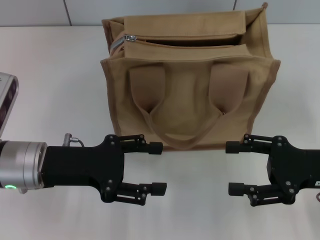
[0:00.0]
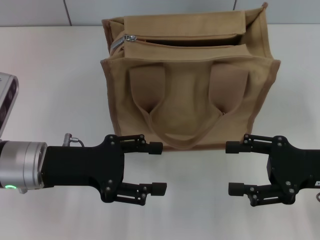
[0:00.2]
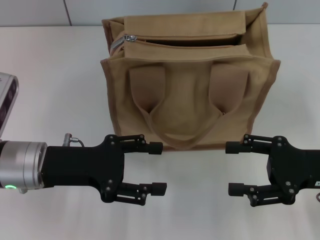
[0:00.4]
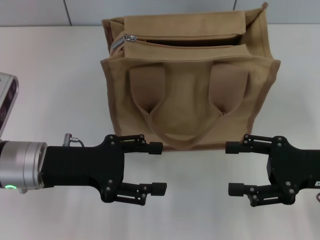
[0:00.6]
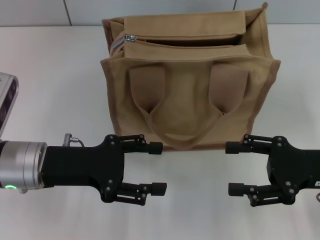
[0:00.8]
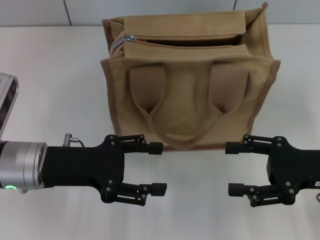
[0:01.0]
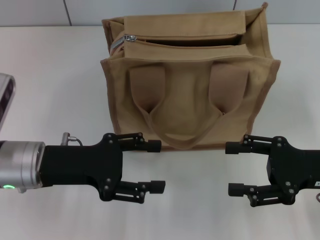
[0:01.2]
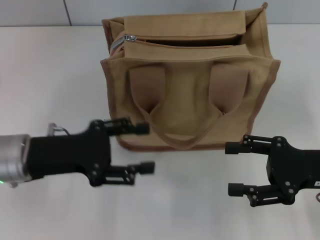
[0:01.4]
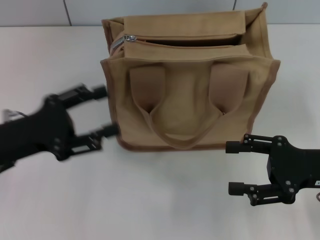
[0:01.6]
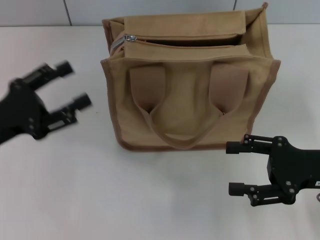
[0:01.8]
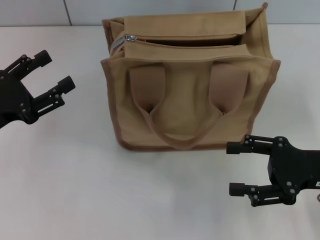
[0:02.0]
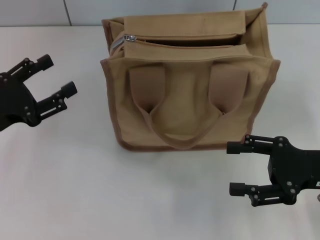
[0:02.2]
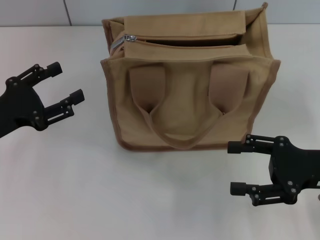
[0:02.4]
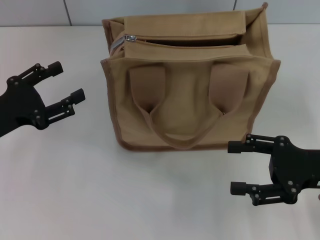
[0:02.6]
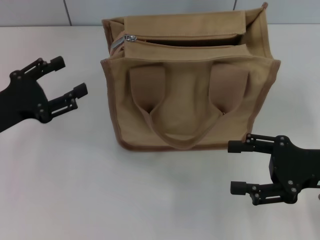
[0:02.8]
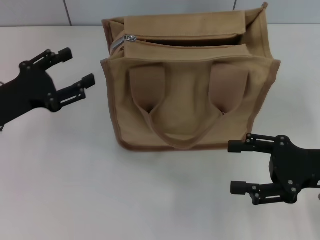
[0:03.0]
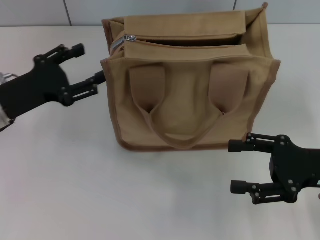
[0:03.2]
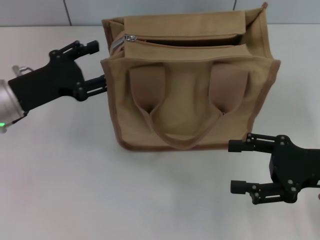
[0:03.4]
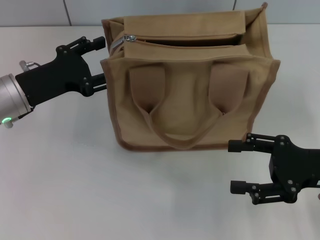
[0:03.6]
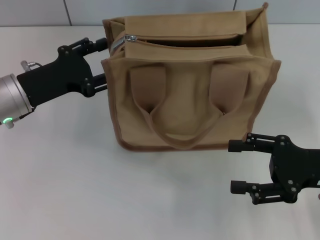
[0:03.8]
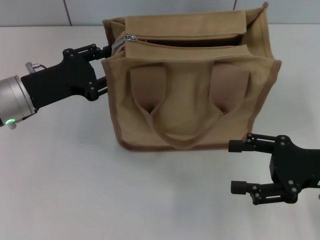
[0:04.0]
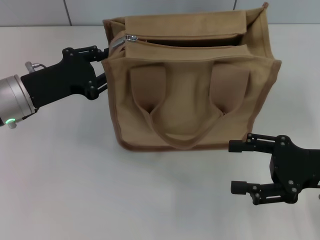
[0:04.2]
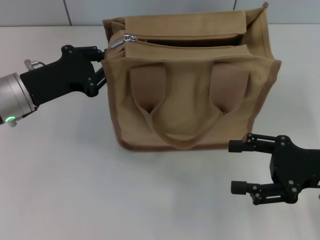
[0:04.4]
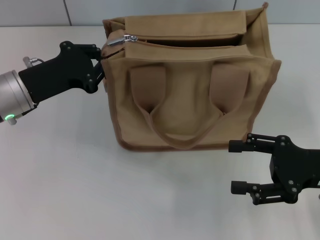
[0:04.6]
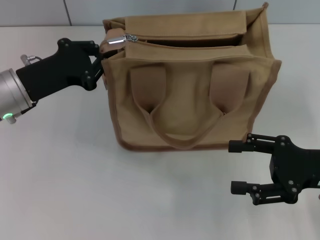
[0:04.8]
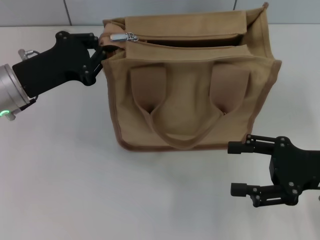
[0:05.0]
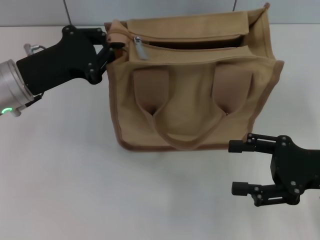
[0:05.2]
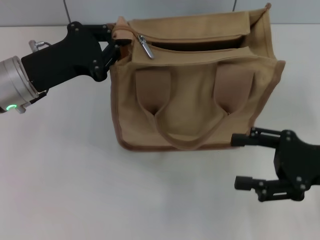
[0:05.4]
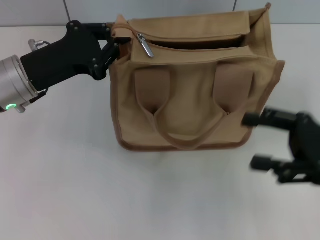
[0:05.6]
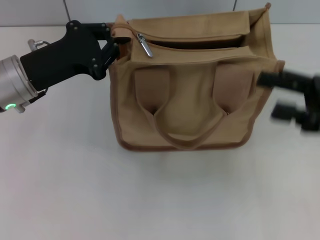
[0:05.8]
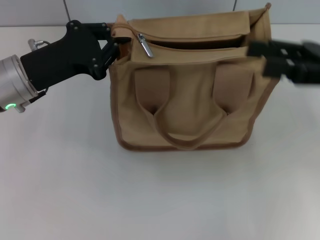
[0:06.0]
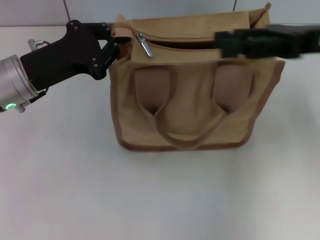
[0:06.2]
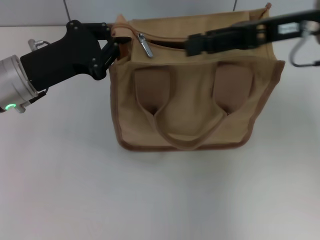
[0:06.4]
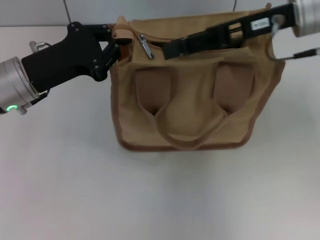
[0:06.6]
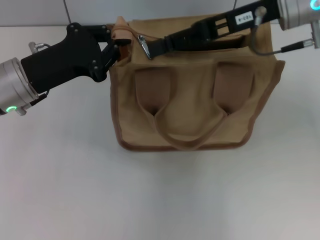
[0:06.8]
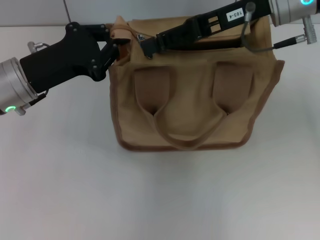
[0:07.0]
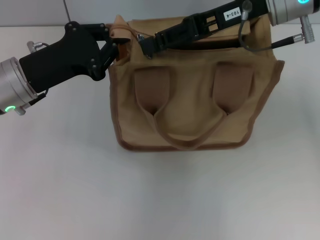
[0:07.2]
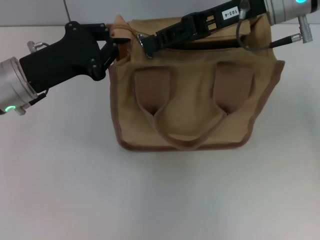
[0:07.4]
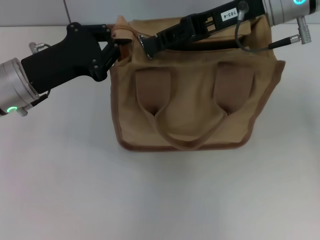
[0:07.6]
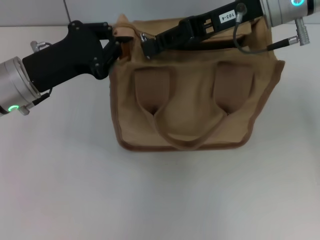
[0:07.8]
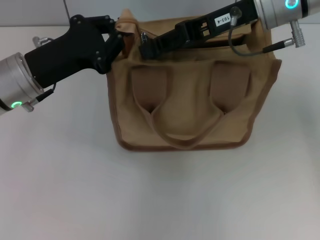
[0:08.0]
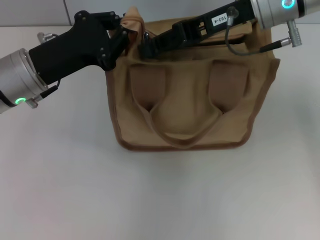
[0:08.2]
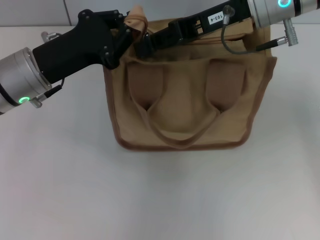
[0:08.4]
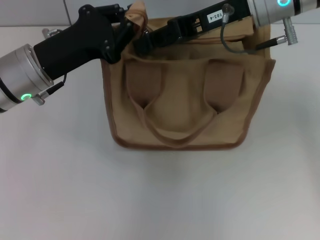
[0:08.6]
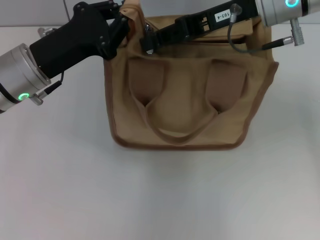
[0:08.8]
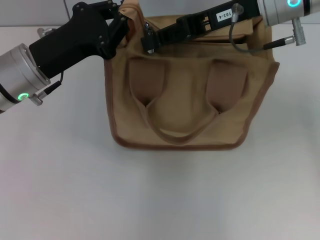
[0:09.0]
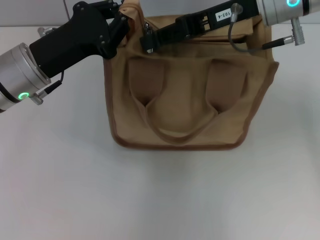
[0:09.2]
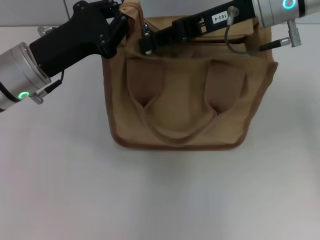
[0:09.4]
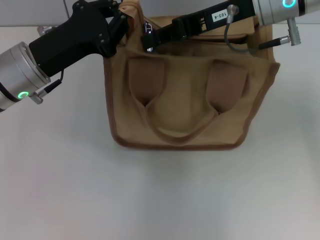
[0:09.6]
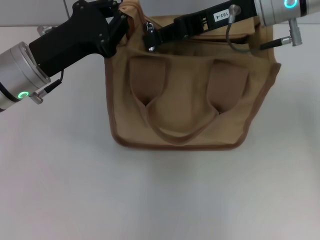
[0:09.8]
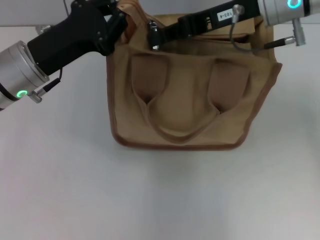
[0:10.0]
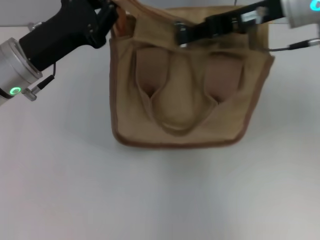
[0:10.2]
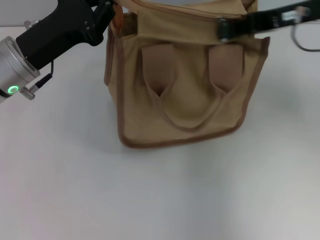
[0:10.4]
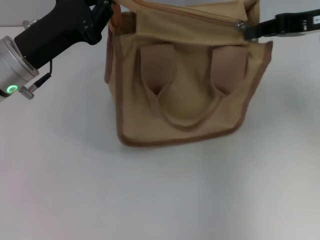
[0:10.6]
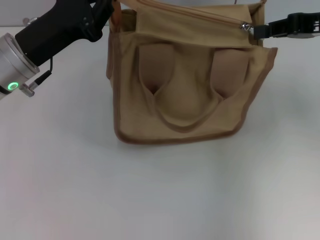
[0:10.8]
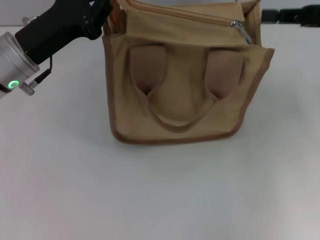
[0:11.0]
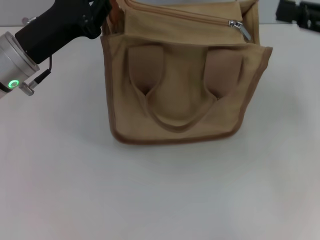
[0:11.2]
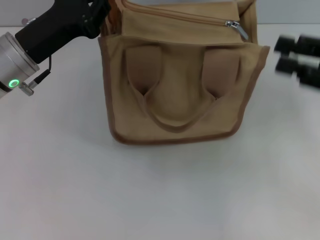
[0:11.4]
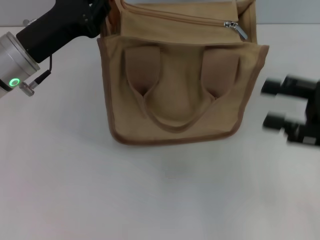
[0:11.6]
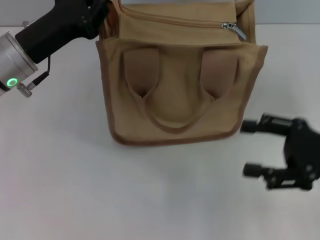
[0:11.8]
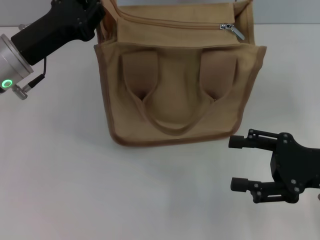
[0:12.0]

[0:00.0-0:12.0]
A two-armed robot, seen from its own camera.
Step, 0:00.0 to 0:10.8: Pull up the zipper with your right hand.
0:00.0 to 0:01.6: The left gripper travels to the left by some 5 cm.
0:03.0 to 0:04.4: The left gripper moves roughly 5 cm, and closes up.
0:04.4 to 0:06.0: The left gripper closes, while the right gripper shifts approximately 10 cm upward and forward.
0:06.0 to 0:07.6: The right gripper moves to the left and forward, approximately 15 cm, and closes.
0:07.6 to 0:09.0: There are only small adjustments of the grippers.
0:09.0 to 0:10.4: The right gripper goes some 10 cm to the right.
0:10.4 to 0:12.0: The right gripper goes approximately 20 cm backward and downward, and opens its fingers.

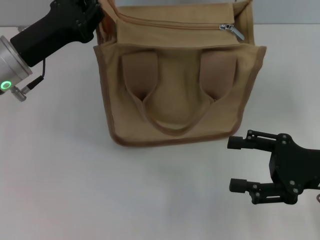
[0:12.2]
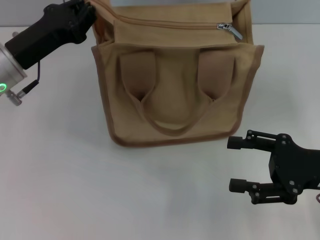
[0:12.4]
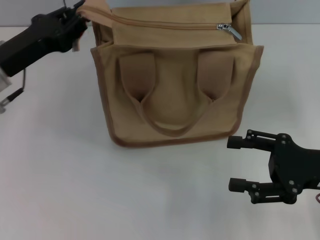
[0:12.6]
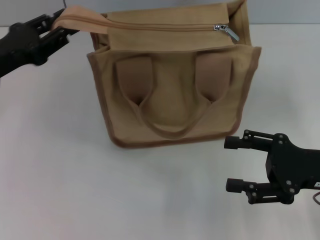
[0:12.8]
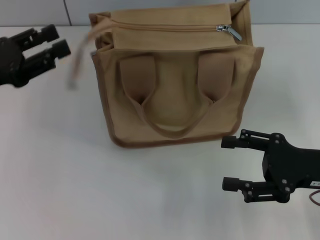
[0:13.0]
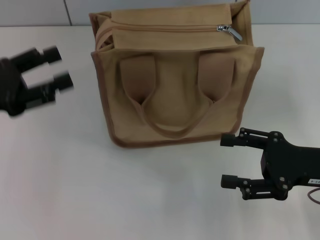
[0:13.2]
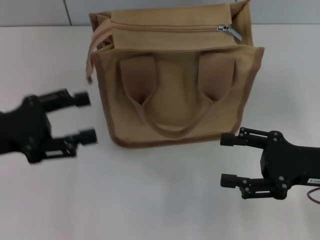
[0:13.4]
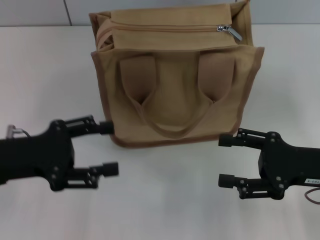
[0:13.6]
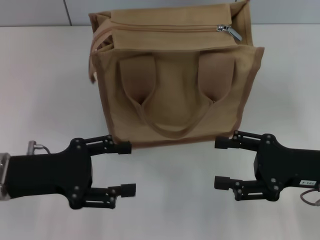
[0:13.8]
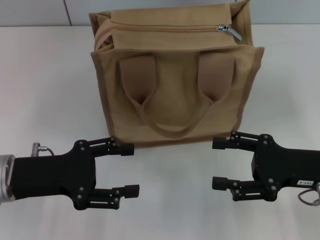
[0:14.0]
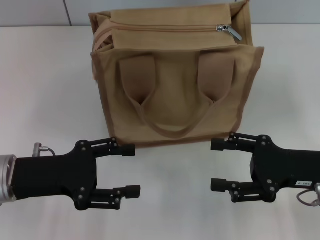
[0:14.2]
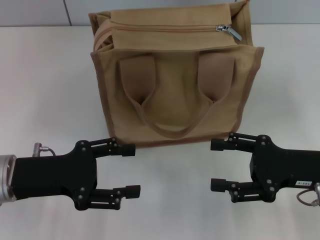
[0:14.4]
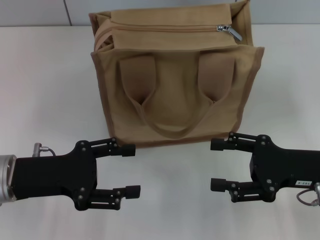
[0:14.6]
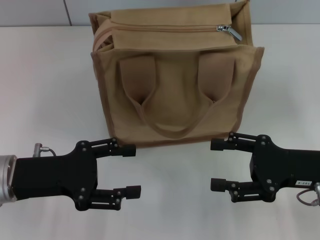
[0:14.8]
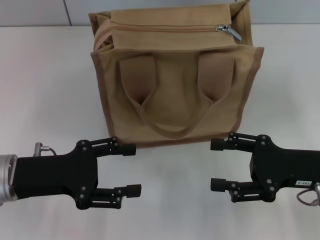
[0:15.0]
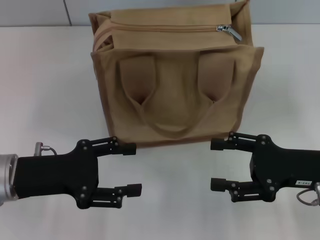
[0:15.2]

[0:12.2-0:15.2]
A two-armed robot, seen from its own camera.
0:12.2 to 0:13.8: The left gripper goes approximately 10 cm backward, and opens.
0:13.8 to 0:15.2: Both grippers stay put.

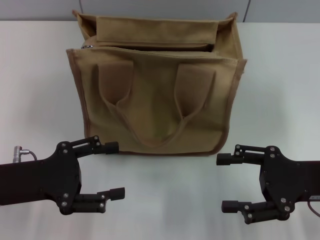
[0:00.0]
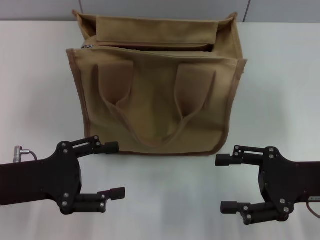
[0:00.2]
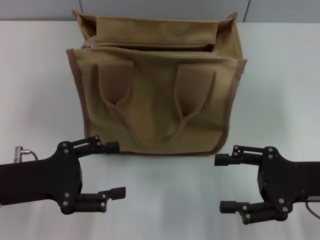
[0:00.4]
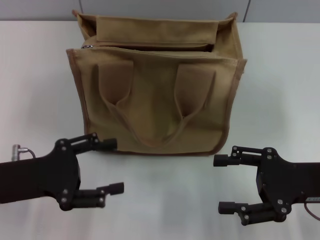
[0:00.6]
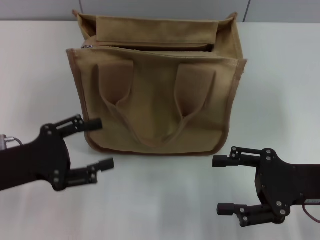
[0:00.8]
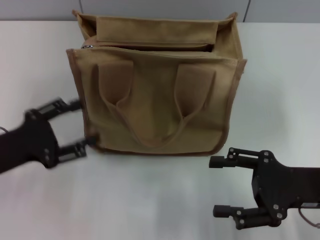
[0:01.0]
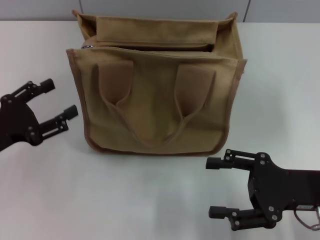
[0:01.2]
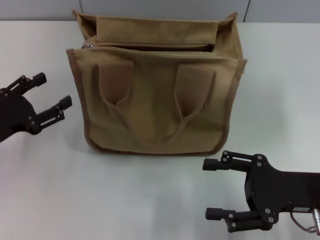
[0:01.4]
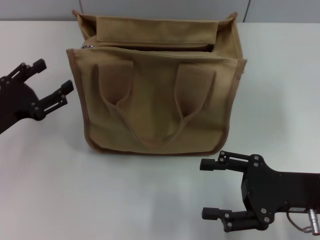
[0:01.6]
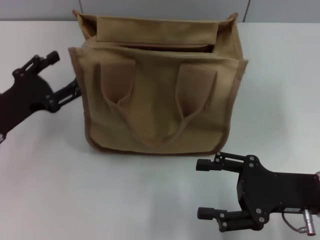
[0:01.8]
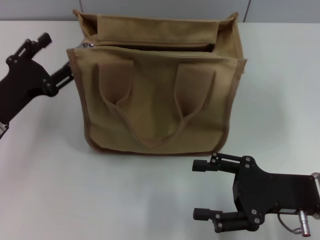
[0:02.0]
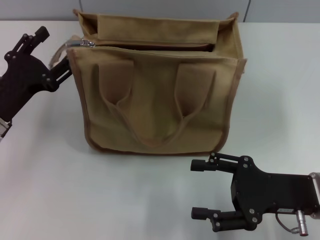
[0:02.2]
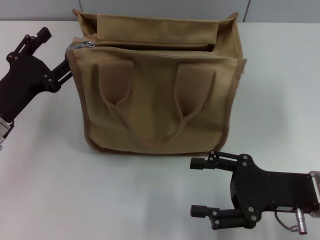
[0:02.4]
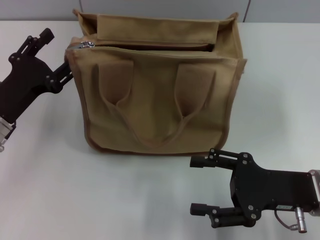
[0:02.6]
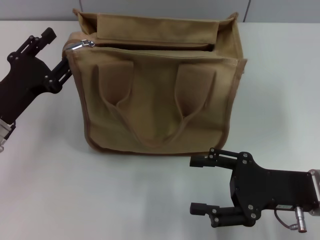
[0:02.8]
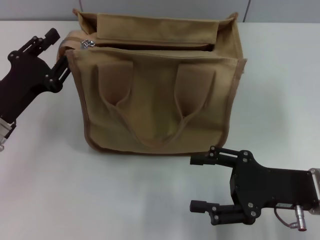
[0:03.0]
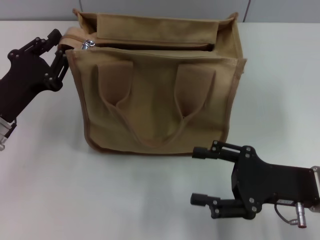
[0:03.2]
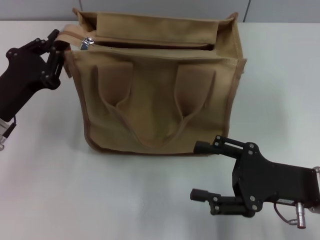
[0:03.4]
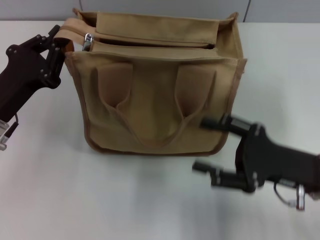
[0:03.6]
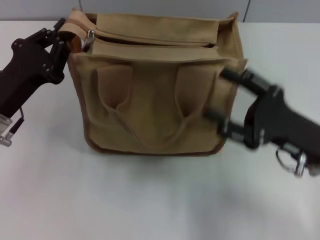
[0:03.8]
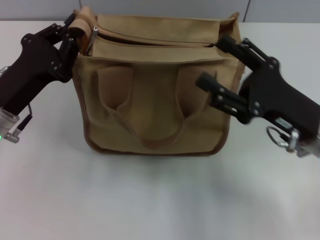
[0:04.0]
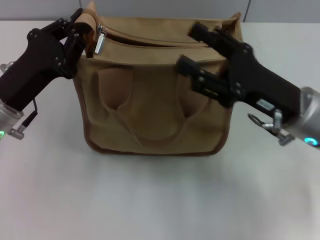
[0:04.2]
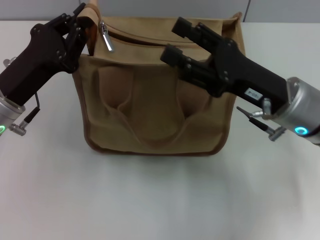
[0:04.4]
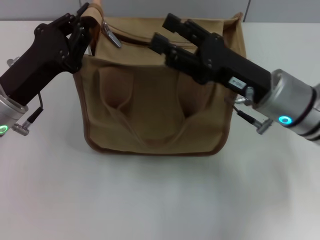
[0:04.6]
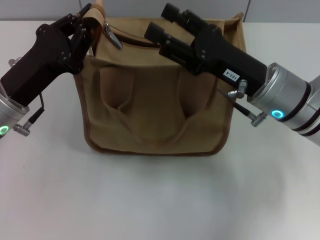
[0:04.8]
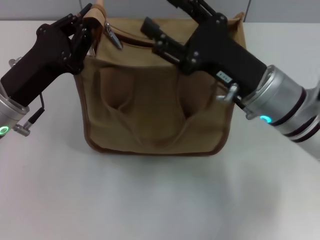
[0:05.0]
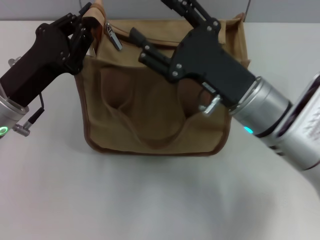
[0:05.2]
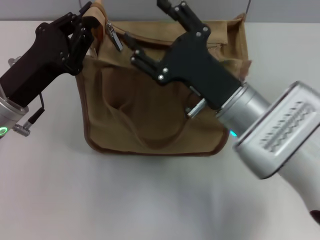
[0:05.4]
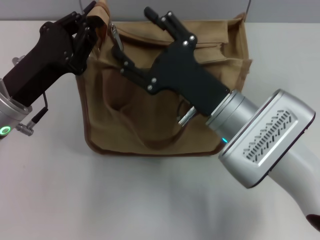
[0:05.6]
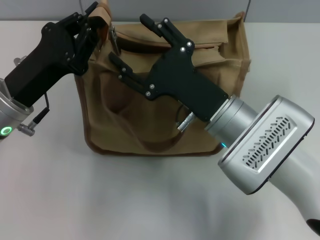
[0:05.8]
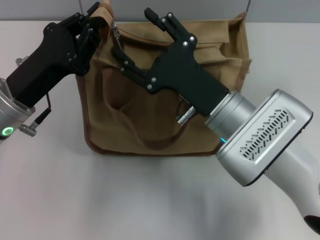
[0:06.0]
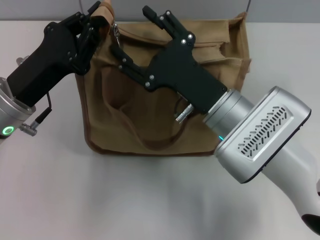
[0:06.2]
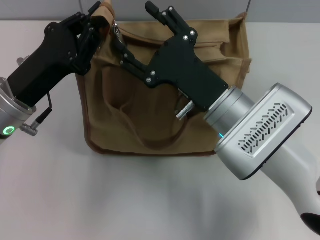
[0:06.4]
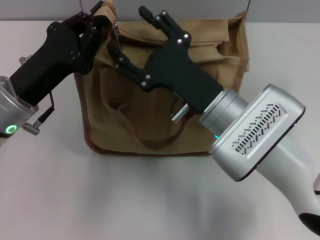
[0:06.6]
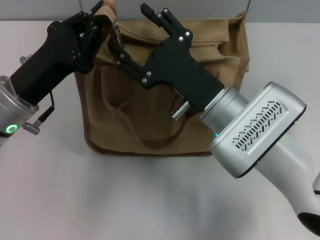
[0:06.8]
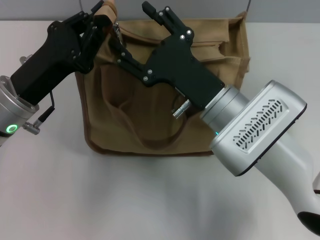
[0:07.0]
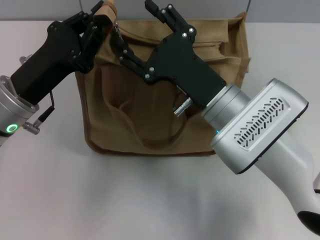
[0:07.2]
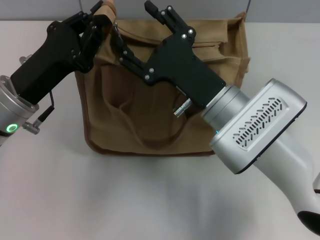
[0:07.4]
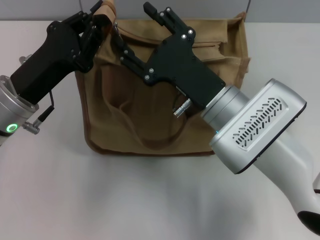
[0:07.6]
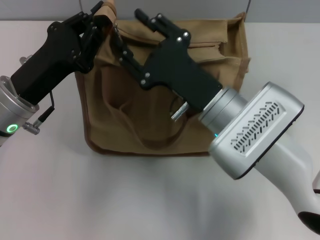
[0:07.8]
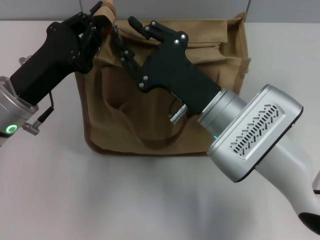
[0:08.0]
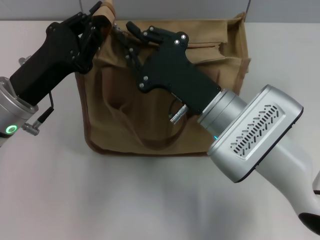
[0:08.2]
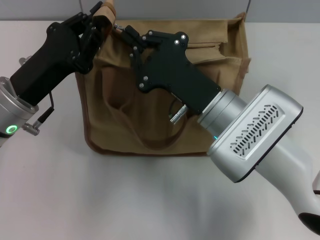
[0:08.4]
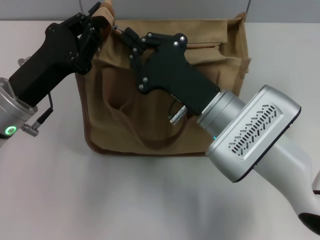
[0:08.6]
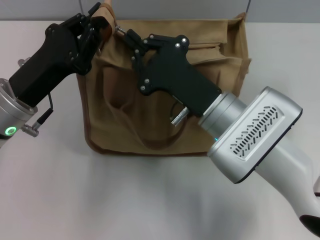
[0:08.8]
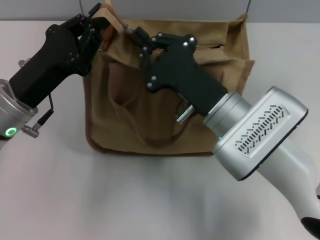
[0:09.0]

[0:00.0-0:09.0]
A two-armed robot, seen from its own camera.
0:00.0 to 0:01.6: The left gripper ends up about 5 cm from where it was.
0:01.6 to 0:03.0: The grippers move only a little.
0:03.0 to 0:04.4: The left gripper closes its fingers; the right gripper travels forward, to the left and upward by roughly 10 cm.
0:04.4 to 0:06.0: The right gripper heads to the left, covering some 10 cm.
0:06.0 to 0:07.6: Both grippers stay about where they are.
0:07.6 to 0:09.0: The right gripper closes.
